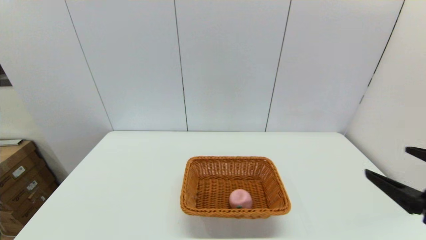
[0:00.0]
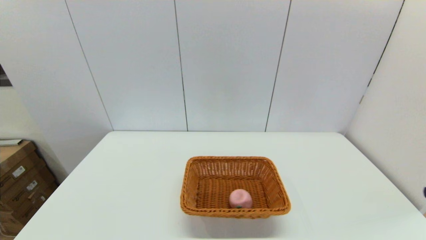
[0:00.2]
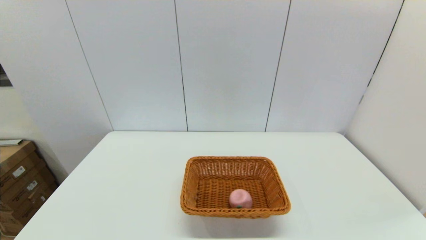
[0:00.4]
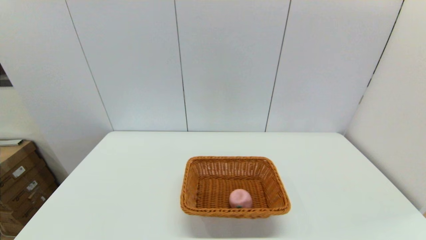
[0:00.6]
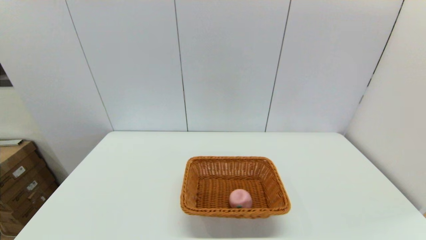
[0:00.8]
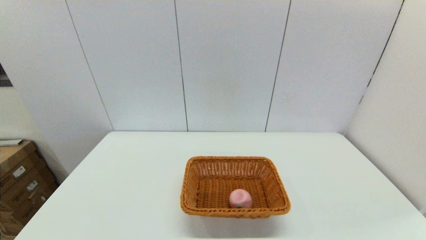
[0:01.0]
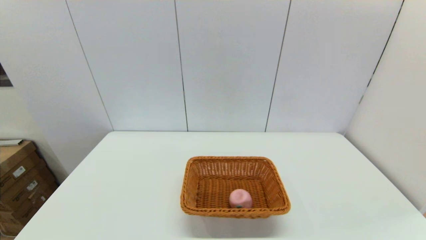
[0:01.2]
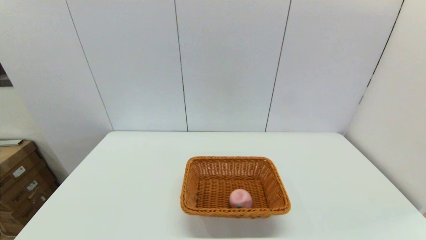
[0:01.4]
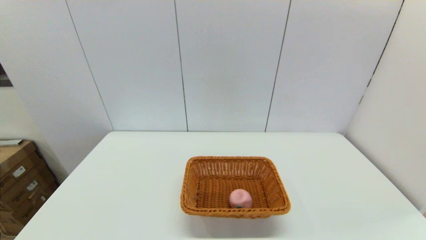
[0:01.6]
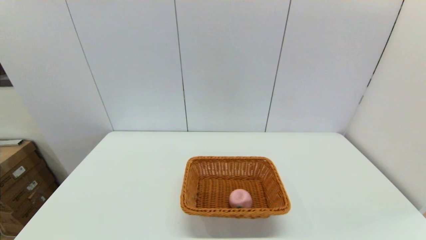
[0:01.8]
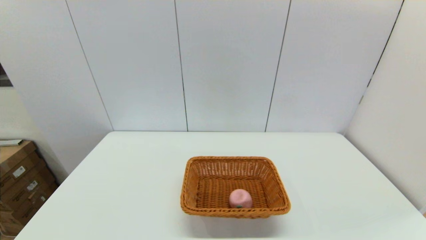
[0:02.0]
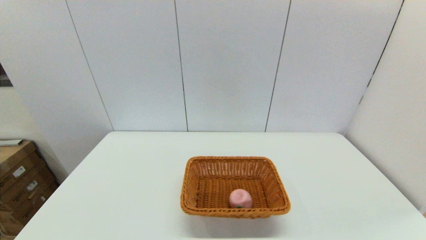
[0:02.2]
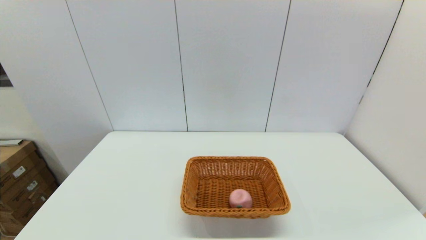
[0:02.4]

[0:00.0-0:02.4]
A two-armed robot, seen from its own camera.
0:00.0 to 0:01.2: The right gripper shifts about 20 cm downward and backward.

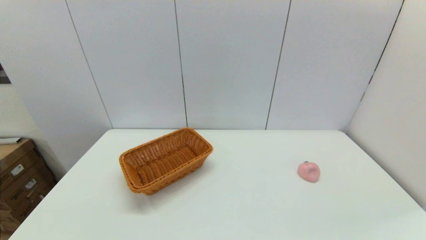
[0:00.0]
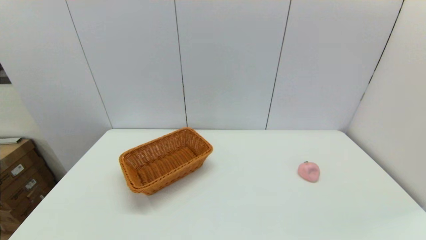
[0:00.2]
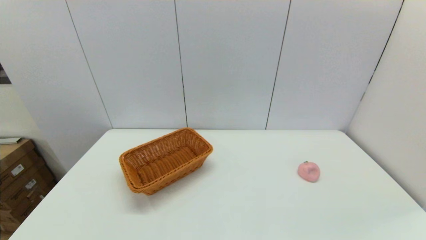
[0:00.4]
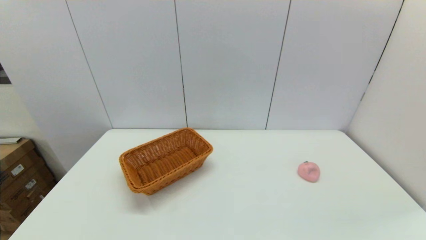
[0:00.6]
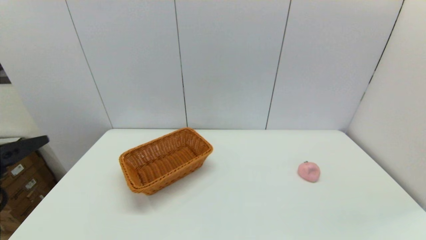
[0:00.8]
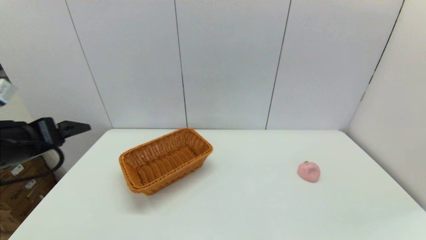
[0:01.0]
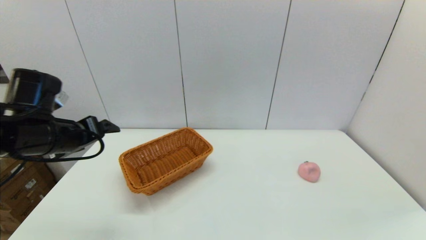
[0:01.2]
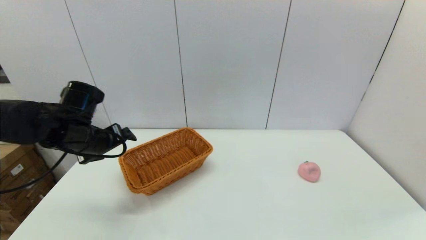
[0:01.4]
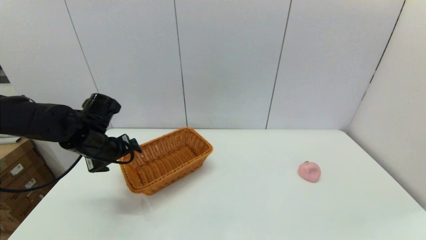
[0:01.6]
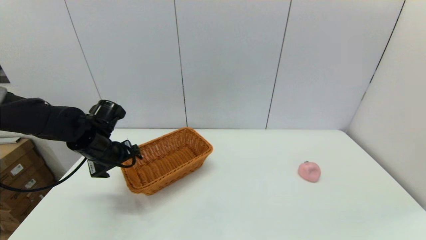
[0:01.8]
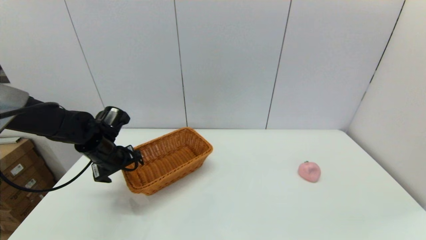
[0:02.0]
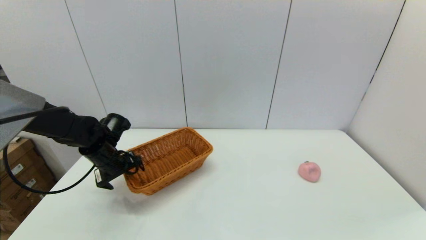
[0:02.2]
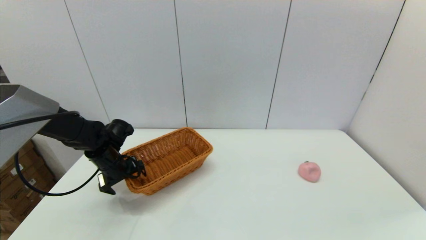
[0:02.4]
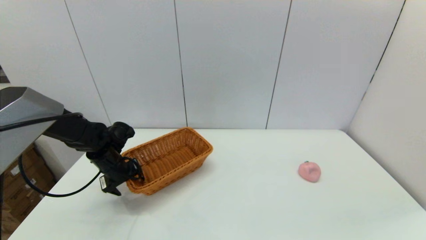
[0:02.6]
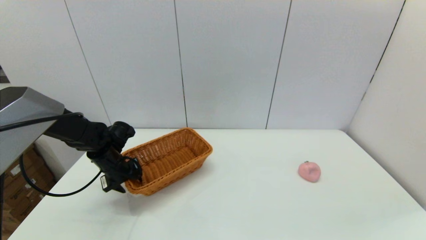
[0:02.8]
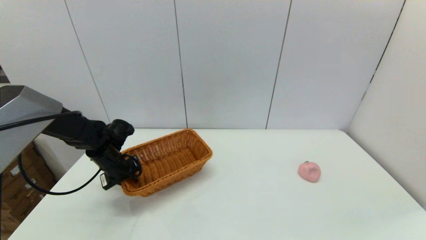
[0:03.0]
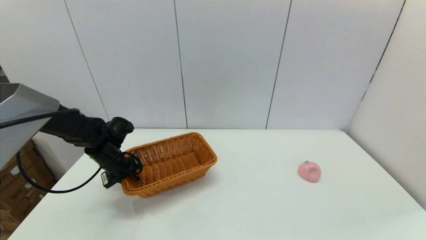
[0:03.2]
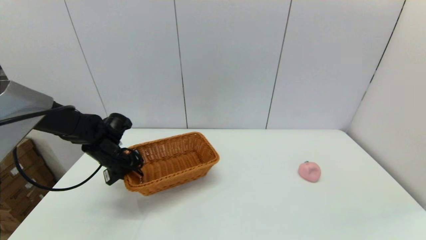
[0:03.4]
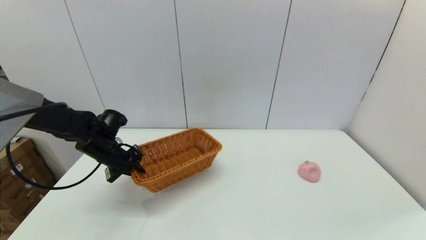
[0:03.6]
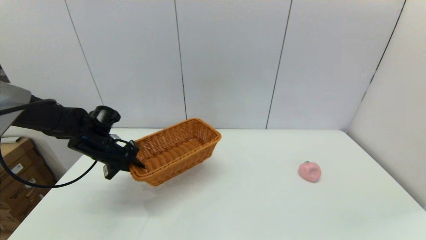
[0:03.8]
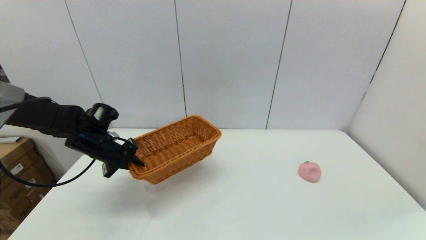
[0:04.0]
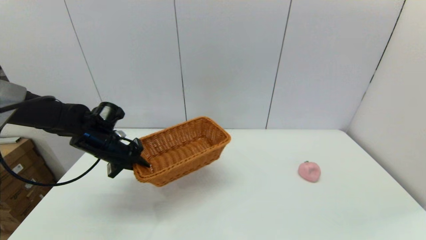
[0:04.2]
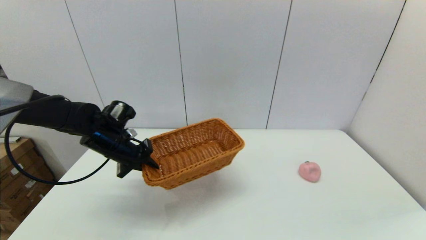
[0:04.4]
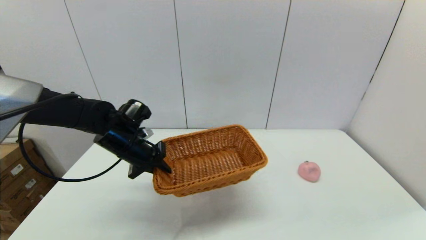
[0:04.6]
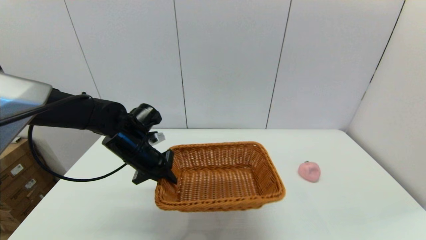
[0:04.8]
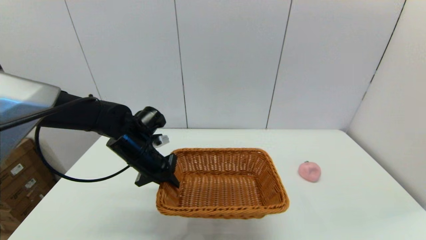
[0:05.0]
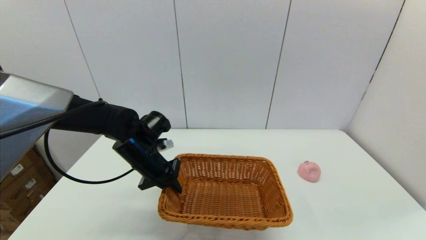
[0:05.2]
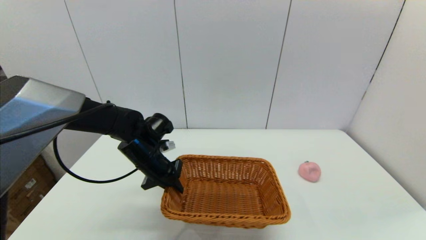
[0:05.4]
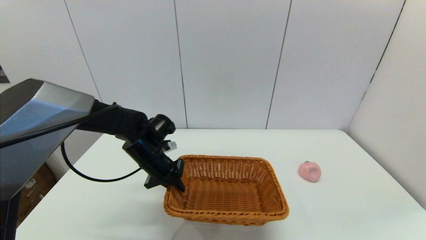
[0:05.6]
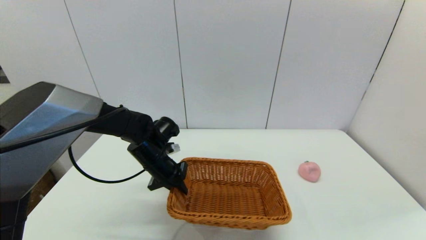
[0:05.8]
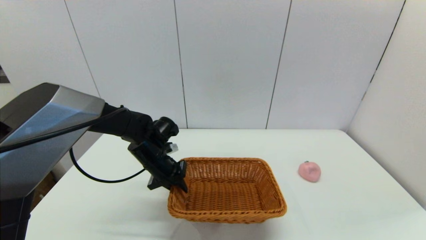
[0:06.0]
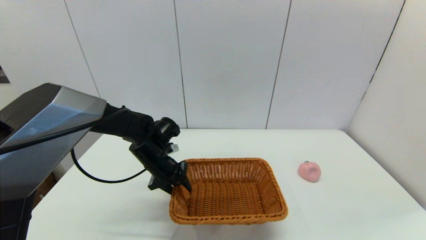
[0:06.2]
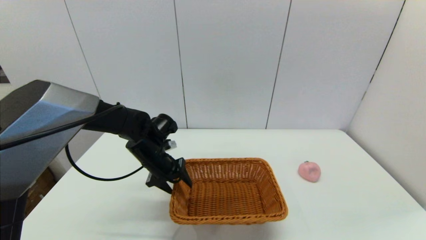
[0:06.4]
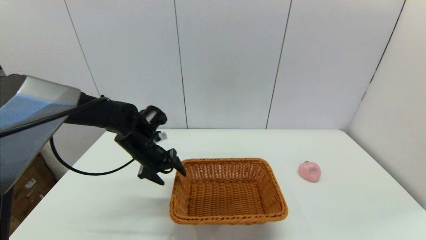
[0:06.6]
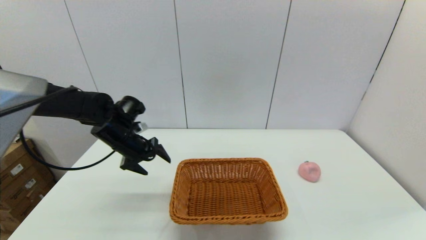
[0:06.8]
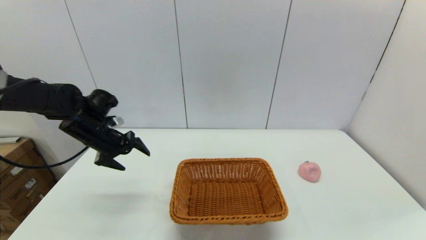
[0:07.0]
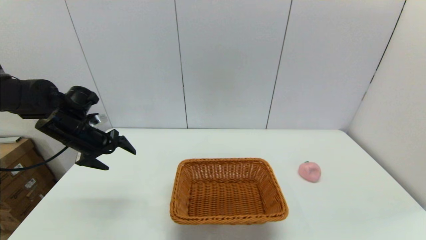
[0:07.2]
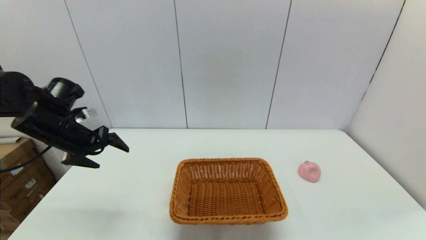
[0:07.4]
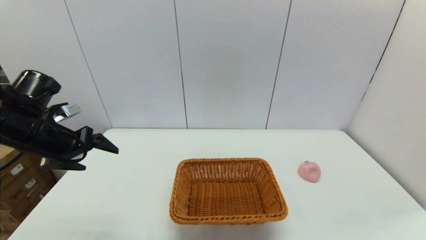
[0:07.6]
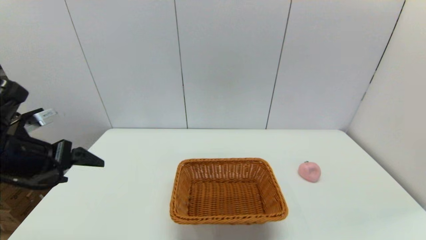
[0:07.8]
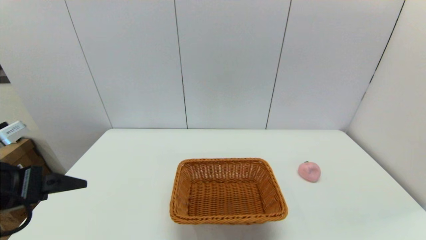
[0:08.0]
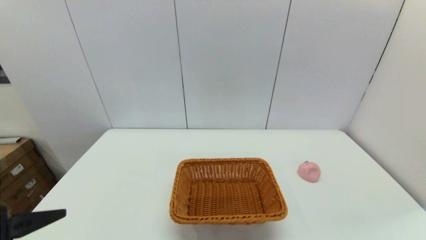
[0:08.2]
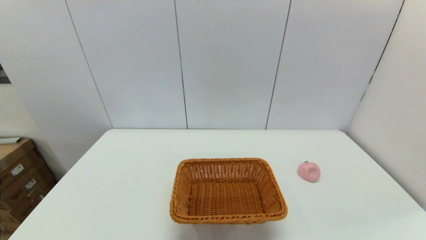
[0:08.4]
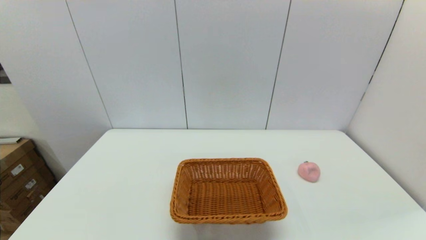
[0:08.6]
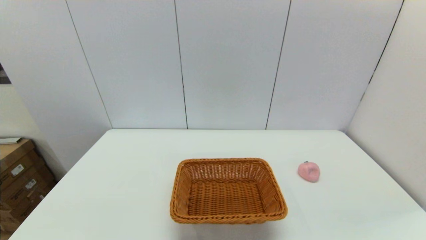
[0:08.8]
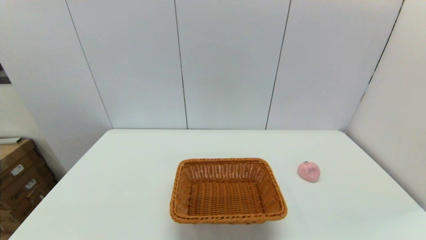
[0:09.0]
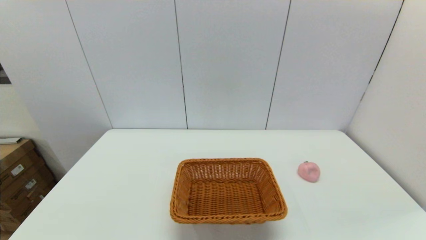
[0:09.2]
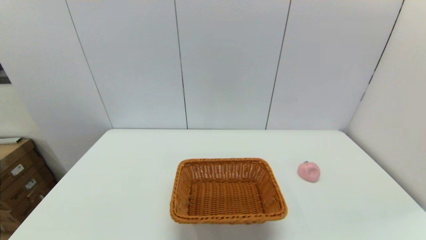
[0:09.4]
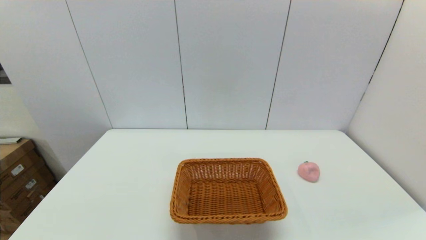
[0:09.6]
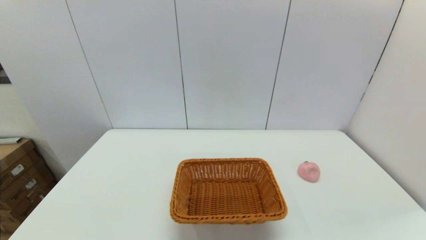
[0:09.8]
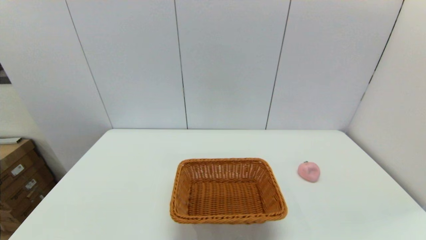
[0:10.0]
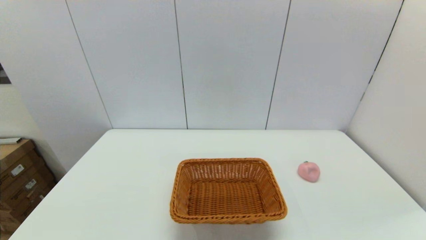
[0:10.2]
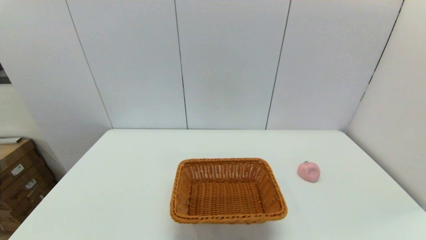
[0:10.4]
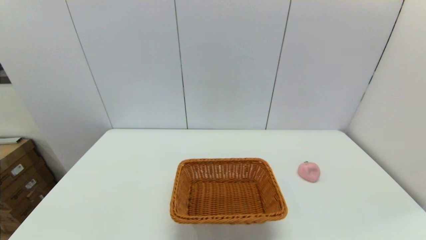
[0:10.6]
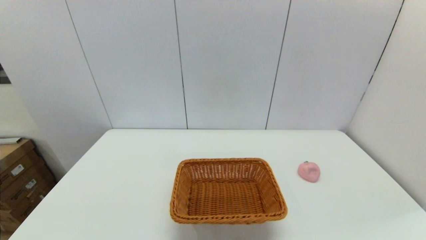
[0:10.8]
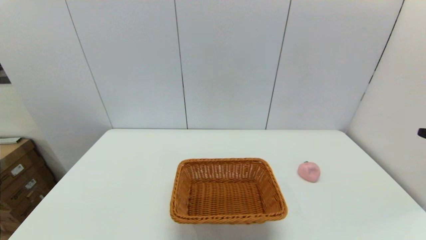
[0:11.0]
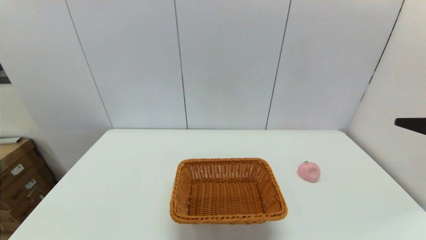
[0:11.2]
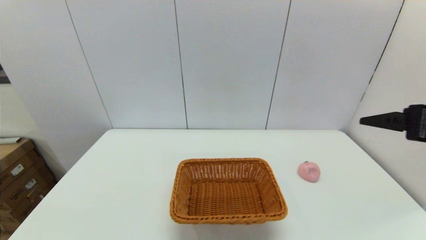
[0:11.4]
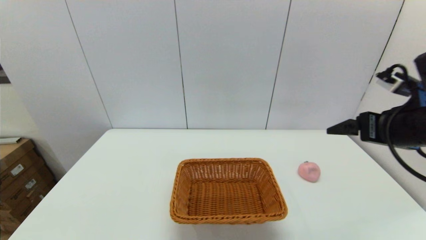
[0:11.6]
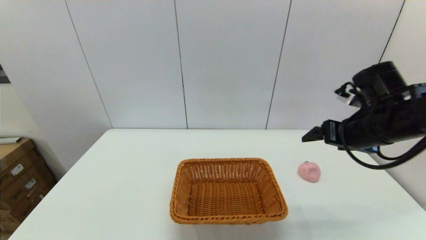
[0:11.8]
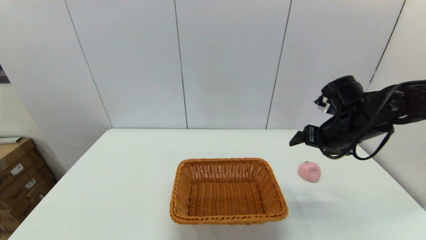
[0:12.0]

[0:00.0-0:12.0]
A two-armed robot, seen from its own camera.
Step, 0:00.0 to 0:03.4: Grasp the light basket with the left gripper.
Step, 0:03.6 to 0:06.2: Place the light basket on the middle of the table with the left gripper.
0:00.0 to 0:01.6: The left gripper goes approximately 35 cm forward.
0:01.6 to 0:03.0: The left gripper shifts some 10 cm downward, and closes its fingers.
0:03.0 to 0:04.4: The left gripper shifts some 5 cm upward.
0:04.4 to 0:06.0: The left gripper is displaced to the right by some 10 cm.
0:06.0 to 0:07.6: The left gripper is displaced to the left, upward and backward by approximately 25 cm, and opens up.
0:07.6 to 0:09.0: The left gripper travels backward by about 30 cm.
0:10.4 to 0:12.0: The right gripper moves forward, roughly 35 cm.

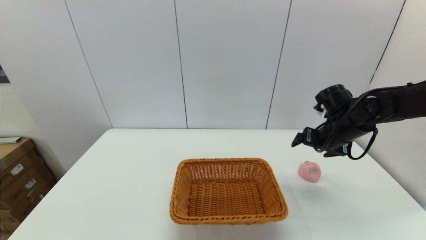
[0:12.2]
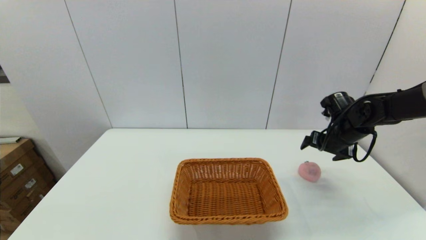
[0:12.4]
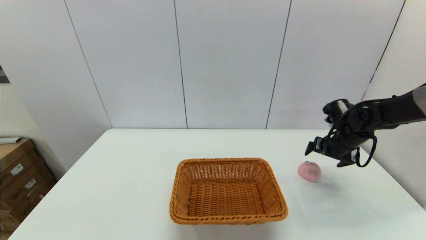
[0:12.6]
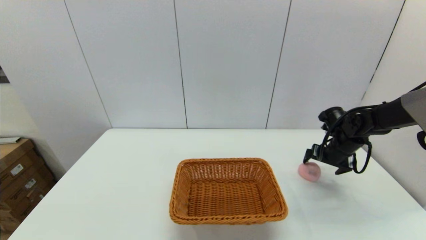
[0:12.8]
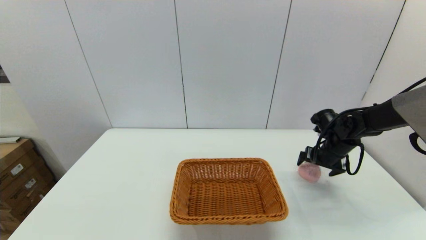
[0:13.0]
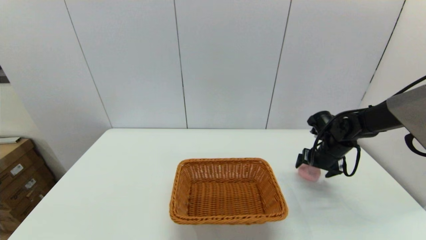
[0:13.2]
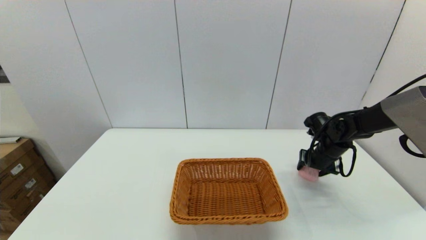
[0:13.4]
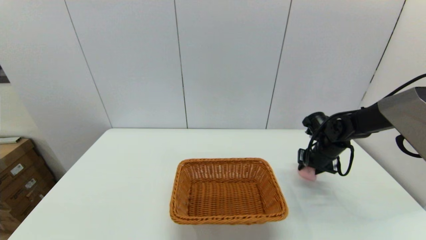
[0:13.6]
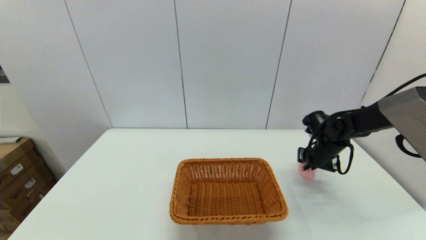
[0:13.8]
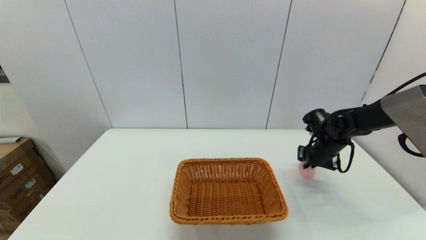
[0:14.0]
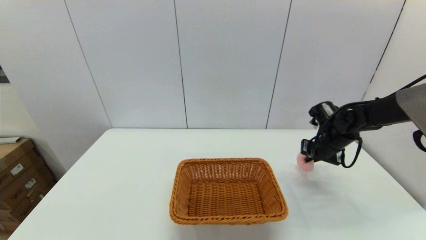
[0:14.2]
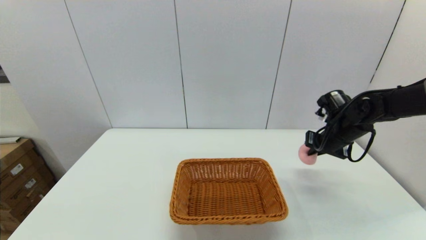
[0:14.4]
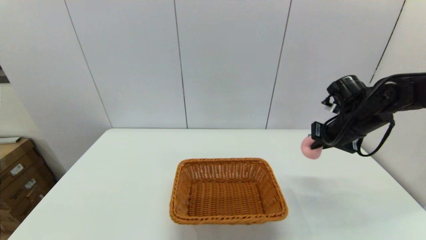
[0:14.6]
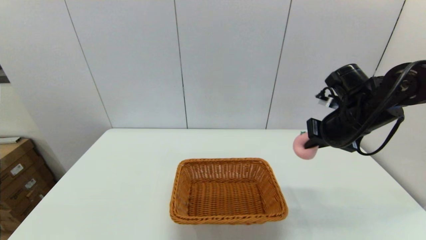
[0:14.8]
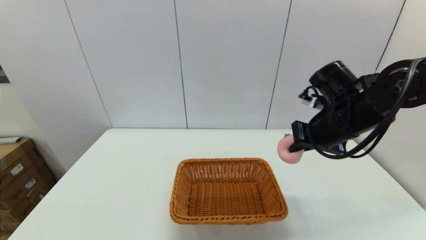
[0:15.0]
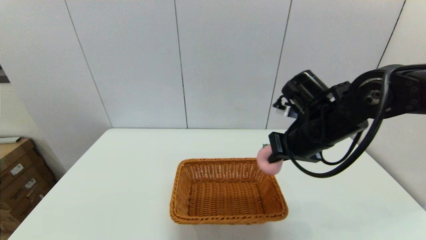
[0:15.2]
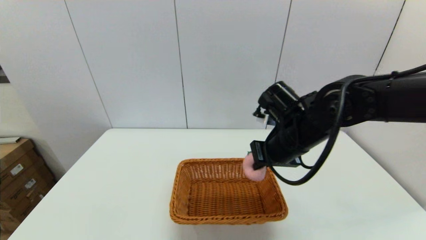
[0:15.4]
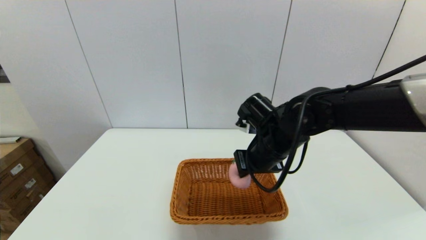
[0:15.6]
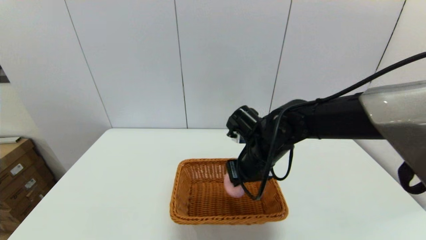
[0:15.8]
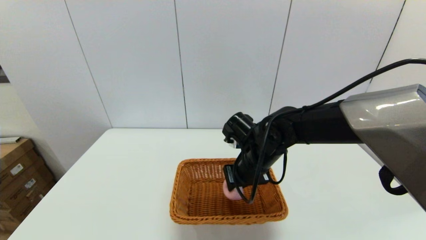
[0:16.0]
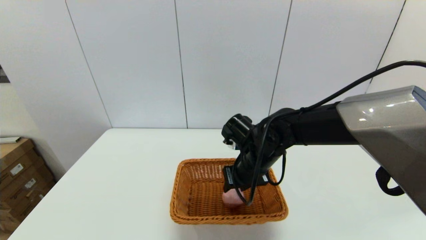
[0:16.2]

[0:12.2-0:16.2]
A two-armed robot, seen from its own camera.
0:12.2 to 0:13.6: The right gripper is displaced downward by roughly 10 cm, and closes.
0:13.6 to 0:14.8: The right gripper travels upward and backward by approximately 20 cm, and closes its fingers.
0:14.8 to 0:16.2: The right gripper goes approximately 20 cm to the left and downward, and opens.
